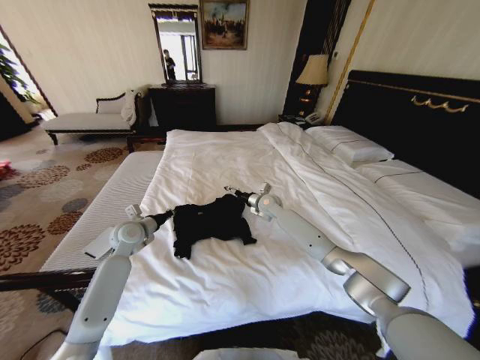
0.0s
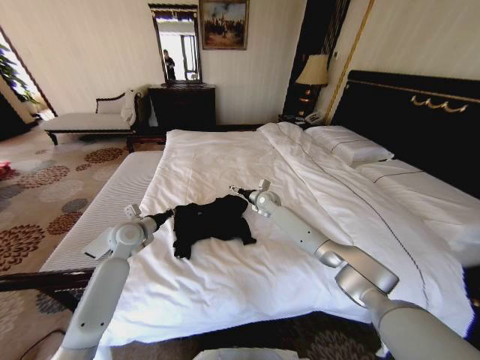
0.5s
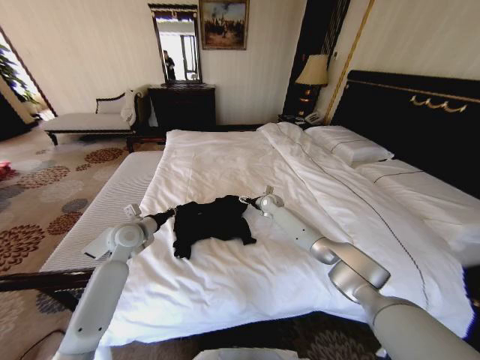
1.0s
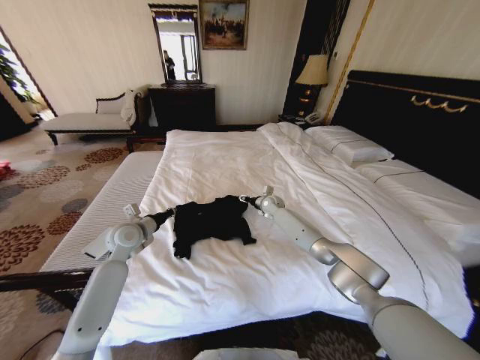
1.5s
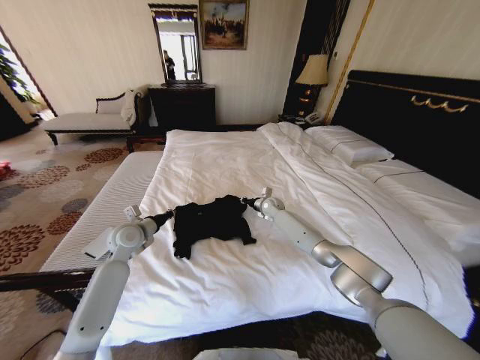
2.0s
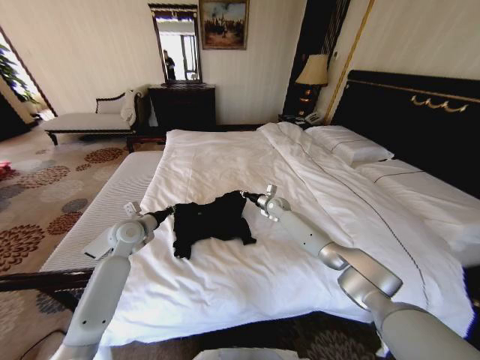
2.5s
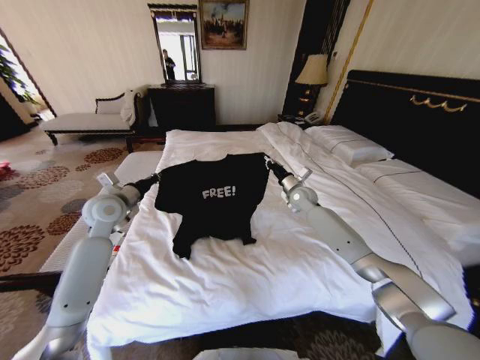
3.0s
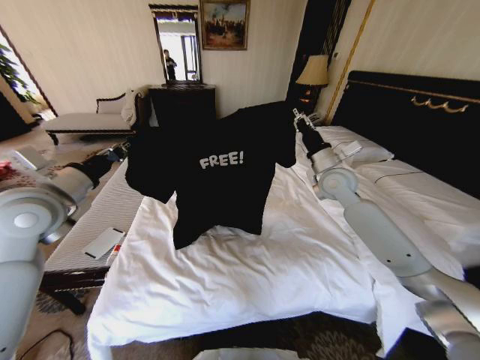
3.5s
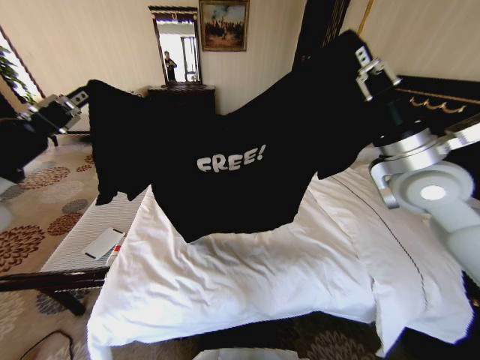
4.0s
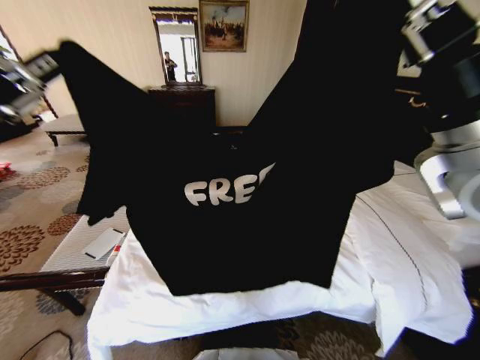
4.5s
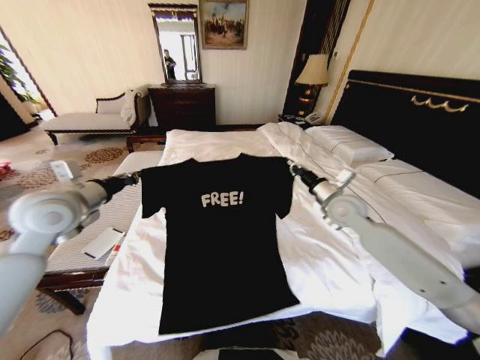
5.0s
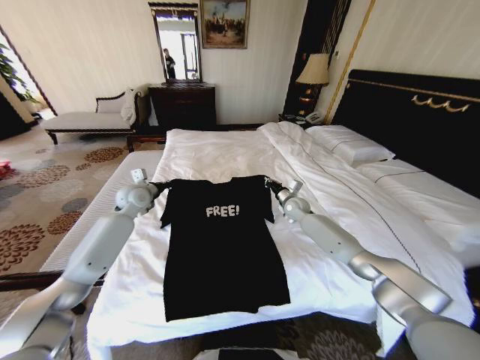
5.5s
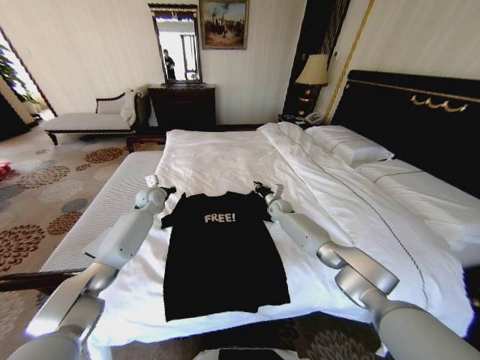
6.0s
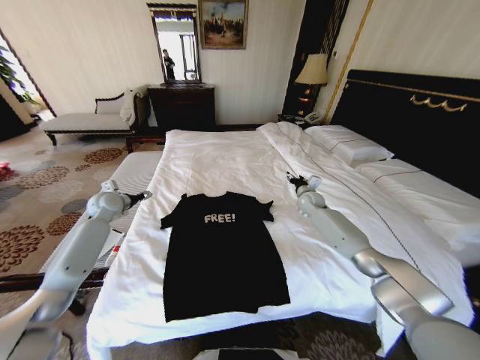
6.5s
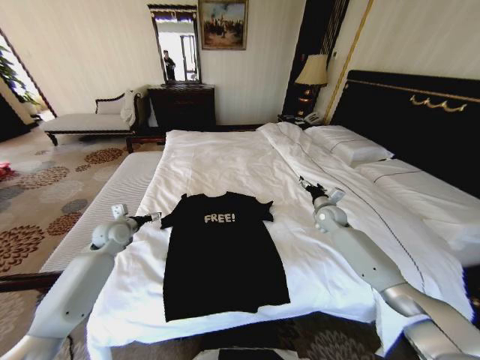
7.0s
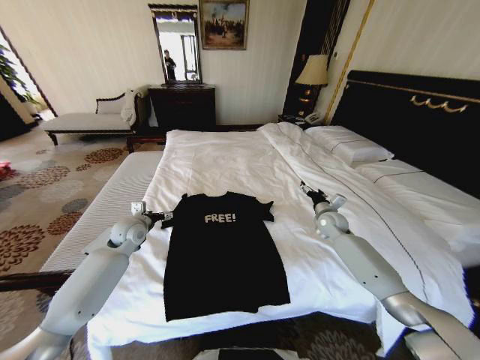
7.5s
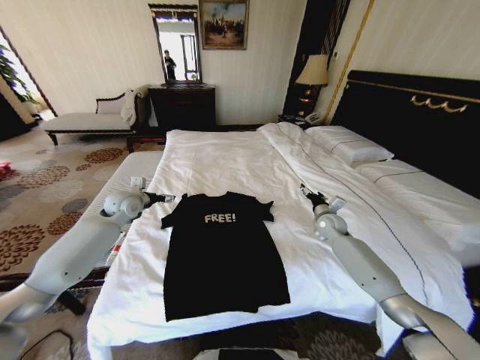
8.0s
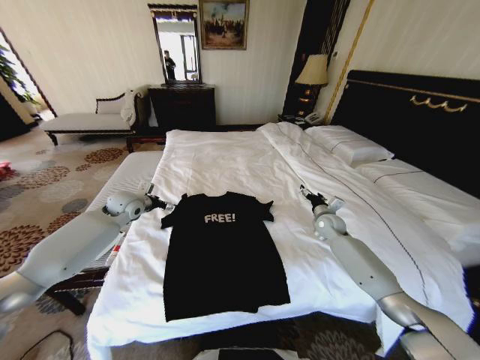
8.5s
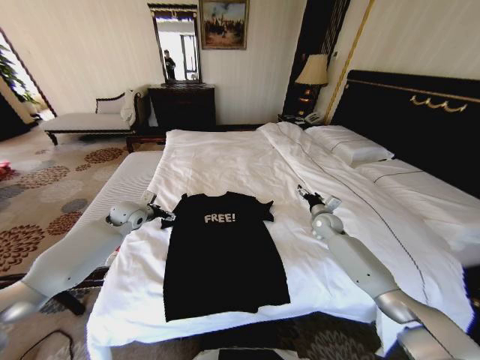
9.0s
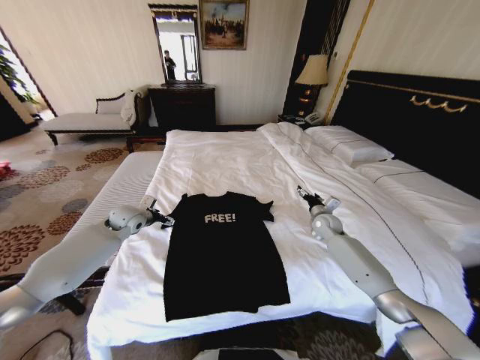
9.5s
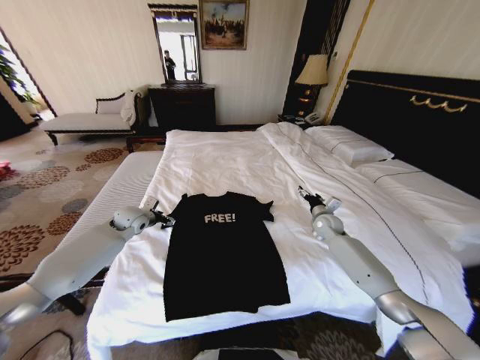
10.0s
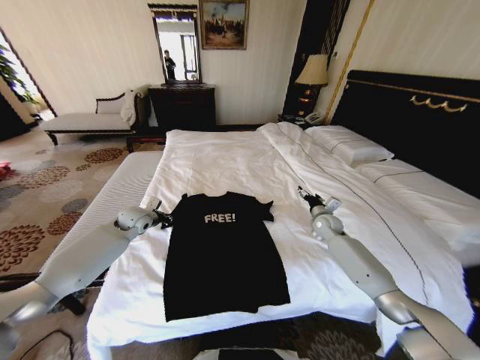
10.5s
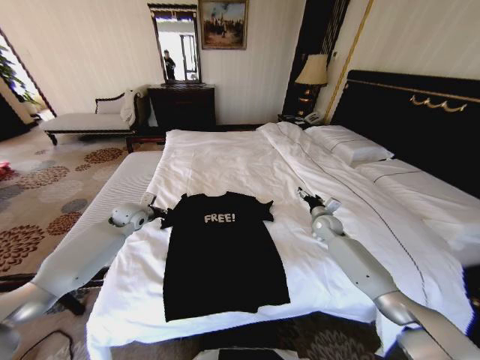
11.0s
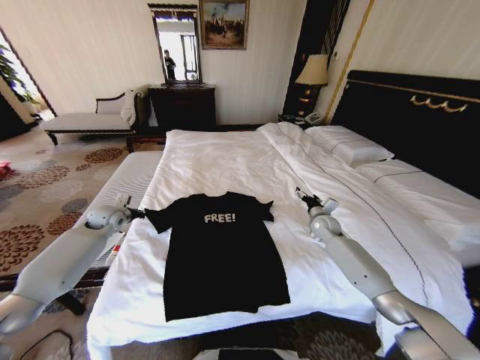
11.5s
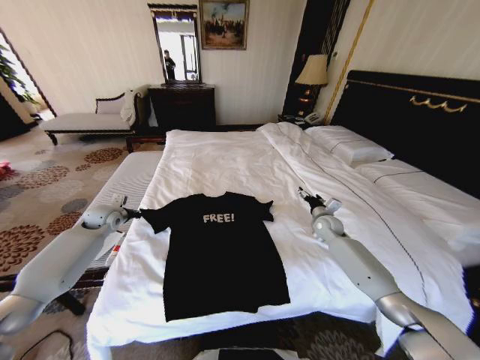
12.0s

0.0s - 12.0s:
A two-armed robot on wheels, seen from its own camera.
Task of the whole recording: Fold the clothes on the bed.
0.0s - 2.0s: The right gripper moves downward, approximately 5 cm, and closes up.
2.0s - 4.0s: The left gripper heads upward and backward, covering approximately 35 cm. Meanwhile the right gripper moves upward, backward and to the right, roughly 40 cm.
4.0s - 6.0s: The left gripper moves forward and downward, roughly 50 cm; the right gripper goes approximately 40 cm downward and forward.
6.0s - 8.0s: The left gripper goes some 10 cm backward and upward, and opens its fingers; the right gripper goes about 20 cm to the right and backward, and opens up.
8.0s - 10.0s: The left gripper heads downward, covering roughly 5 cm.
10.0s - 12.0s: The left gripper goes about 10 cm to the left, and closes its fingers.

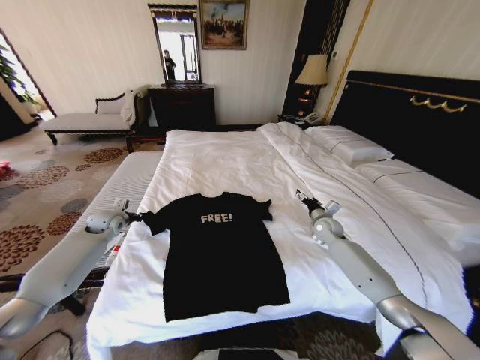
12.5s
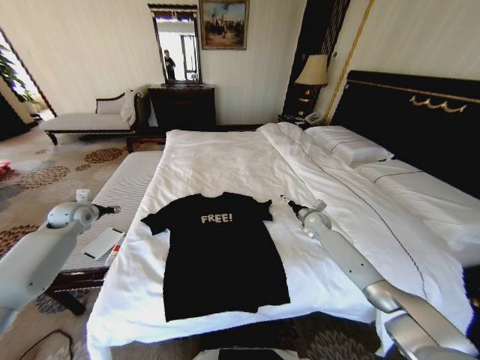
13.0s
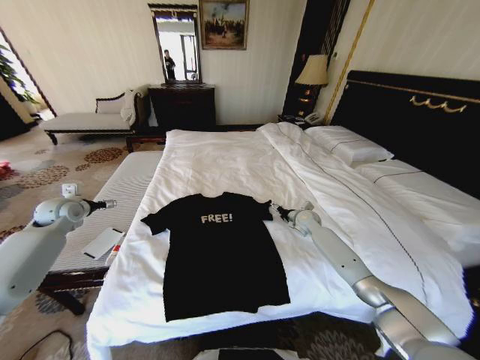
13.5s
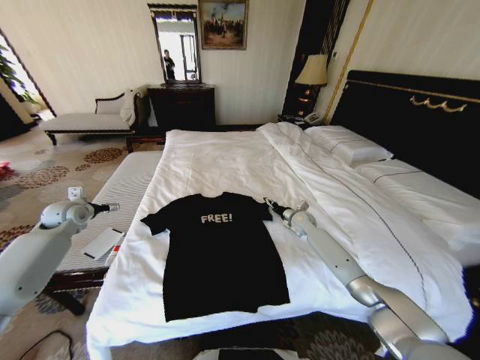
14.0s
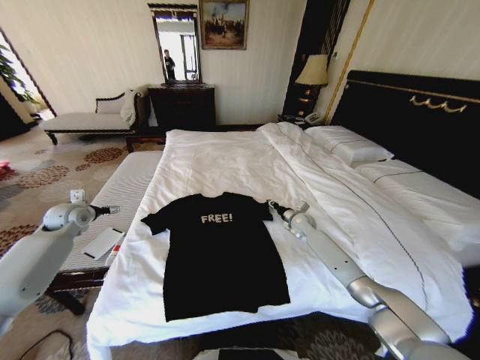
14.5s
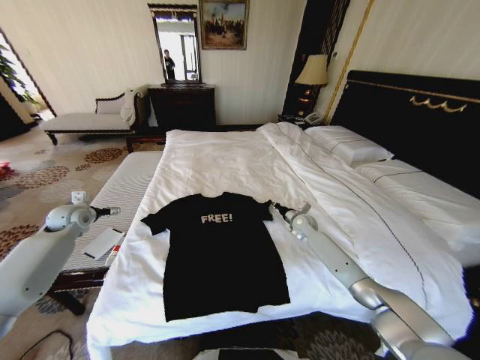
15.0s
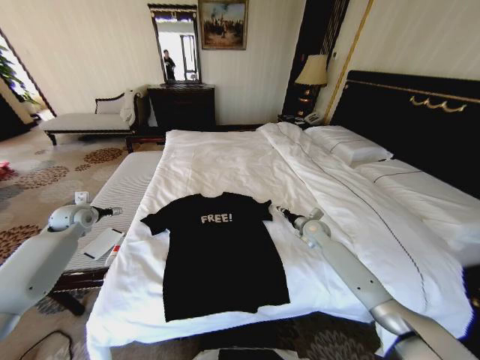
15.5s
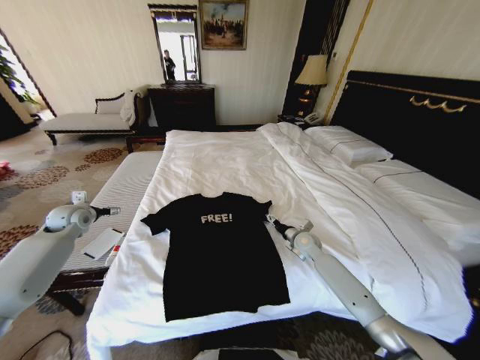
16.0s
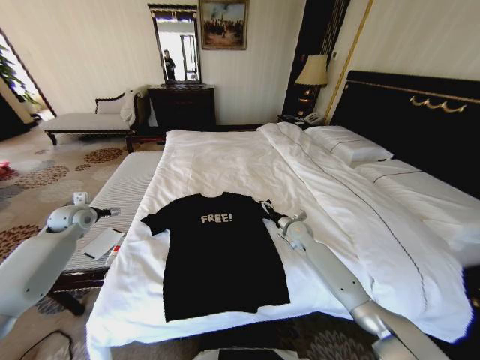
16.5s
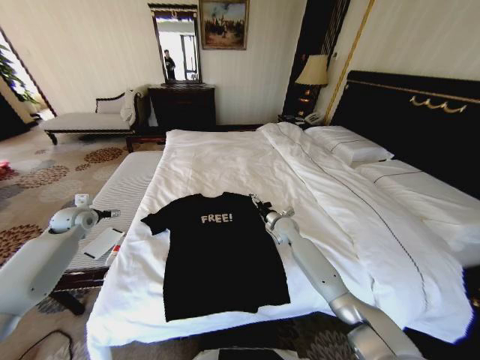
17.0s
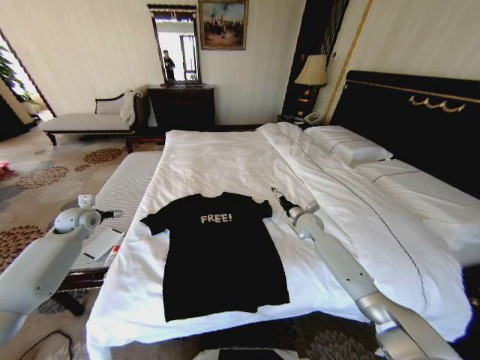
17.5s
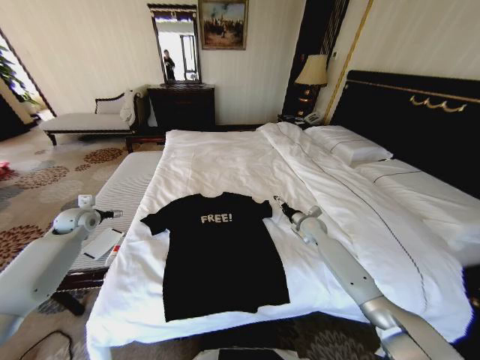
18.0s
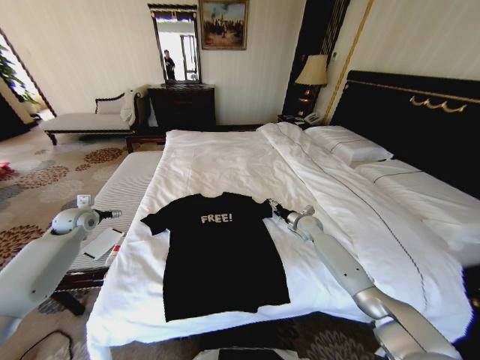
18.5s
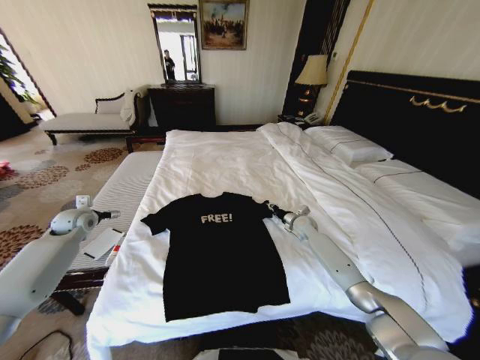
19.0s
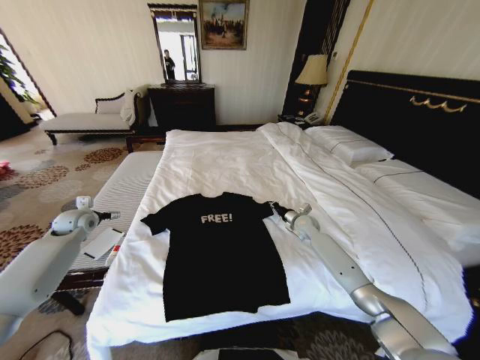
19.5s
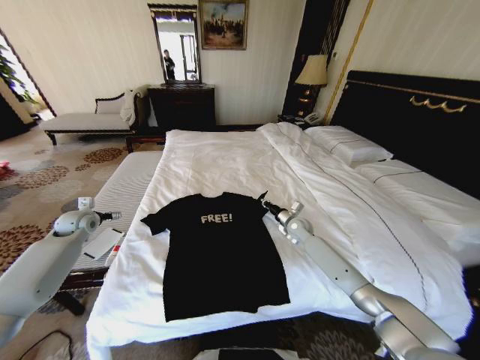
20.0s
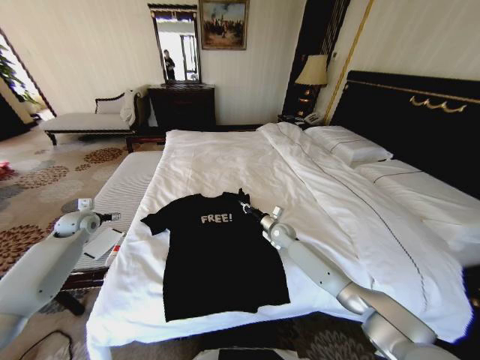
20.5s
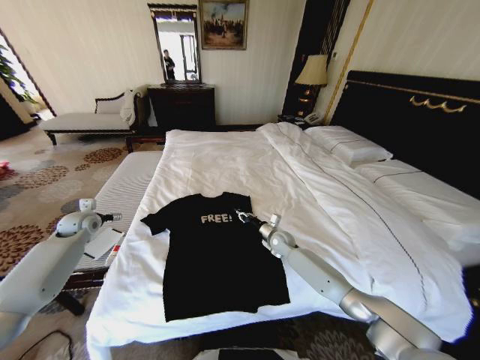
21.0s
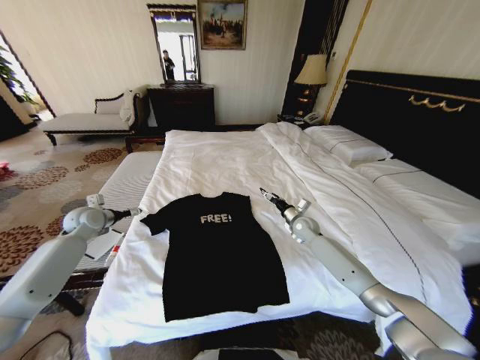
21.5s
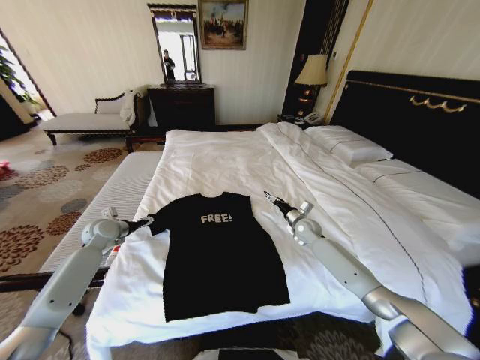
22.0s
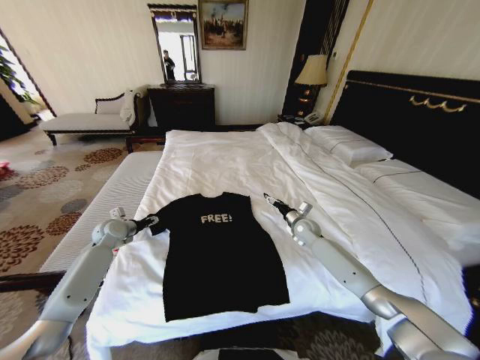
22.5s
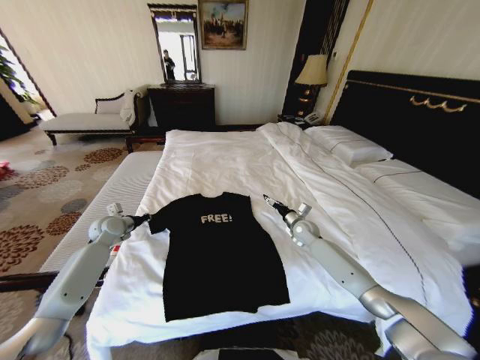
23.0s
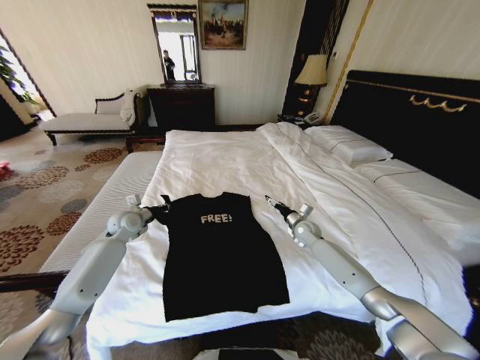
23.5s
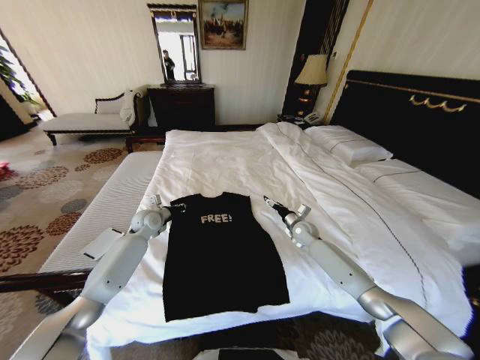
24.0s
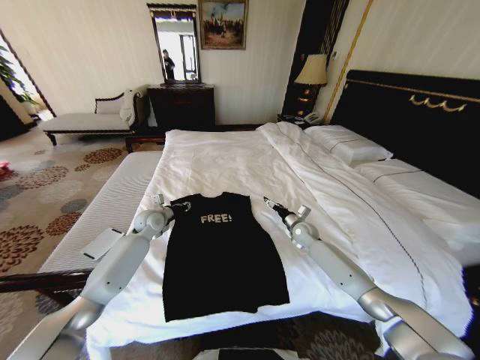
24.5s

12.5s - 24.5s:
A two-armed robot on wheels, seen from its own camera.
Task of the whole recording: Fold the clothes on the bed.
12.5s - 14.5s: The left gripper goes about 10 cm to the left and upward, and opens. The right gripper shifts about 5 cm to the left, and closes.
14.5s - 16.5s: The right gripper shifts roughly 5 cm backward, and opens its fingers.
16.5s - 18.5s: The right gripper is displaced to the right by some 5 cm.
18.5s - 20.5s: The right gripper is displaced to the left by roughly 10 cm, and closes its fingers.
20.5s - 22.5s: Both grippers move to the right, approximately 10 cm. The right gripper opens.
22.5s - 24.5s: The left gripper moves to the right, approximately 15 cm, and closes its fingers.

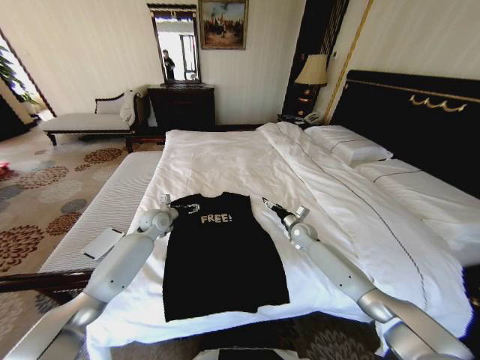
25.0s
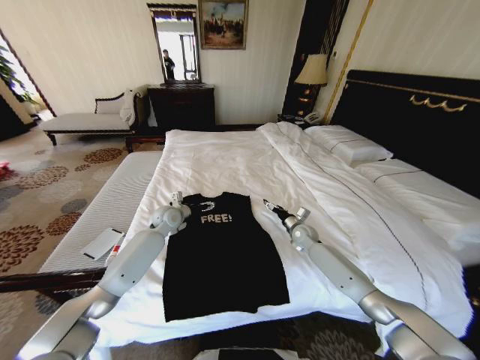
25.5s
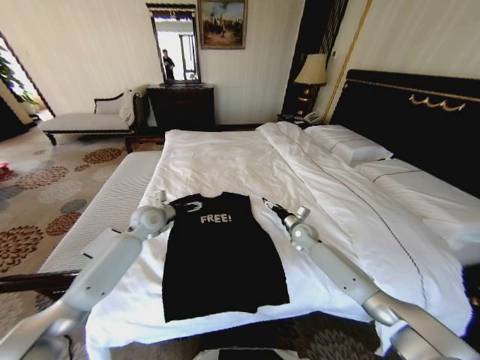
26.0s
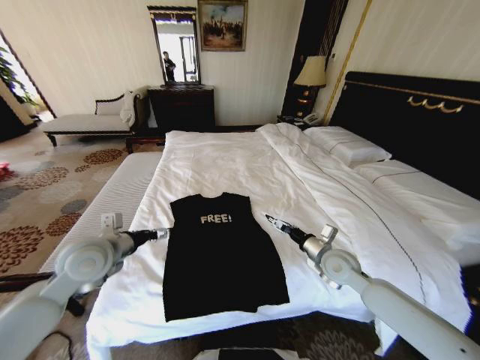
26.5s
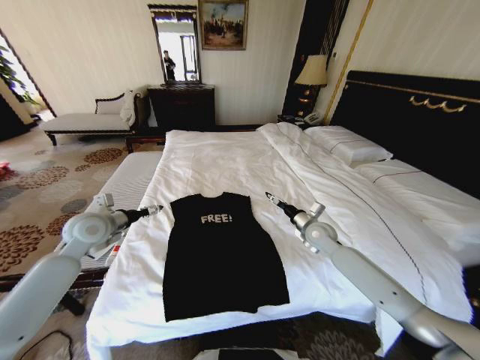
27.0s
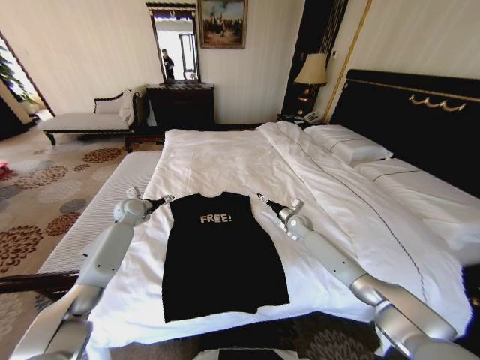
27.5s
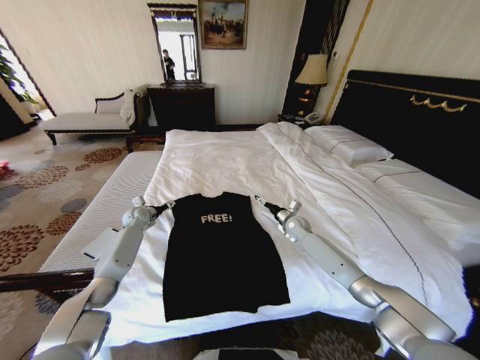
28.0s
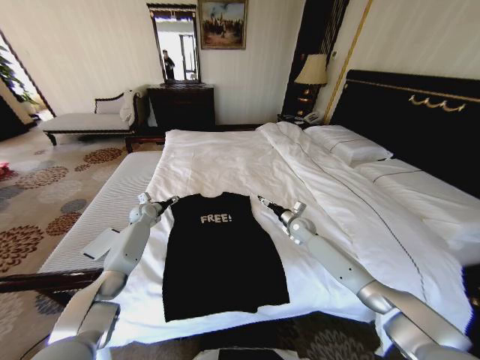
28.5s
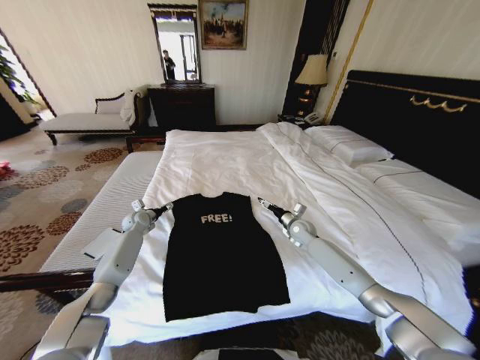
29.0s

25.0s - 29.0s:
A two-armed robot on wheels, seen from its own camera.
Task of the whole recording: Fold the clothes on the bed.
25.0s - 27.0s: The left gripper is displaced backward, upward and to the left by roughly 20 cm; the right gripper is displaced upward and backward by roughly 10 cm.
27.0s - 29.0s: The left gripper moves downward and forward, roughly 25 cm. Meanwhile the right gripper goes about 10 cm forward and downward.
